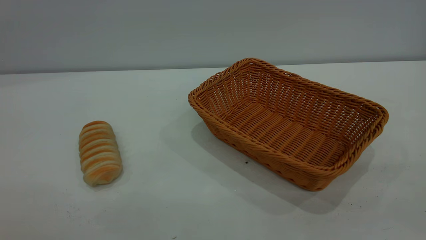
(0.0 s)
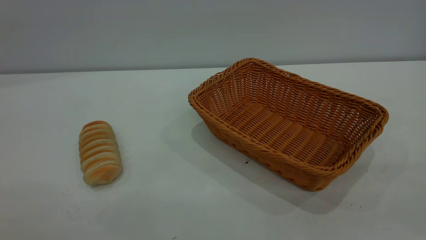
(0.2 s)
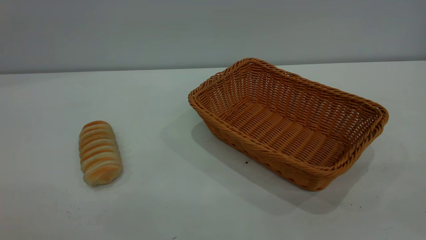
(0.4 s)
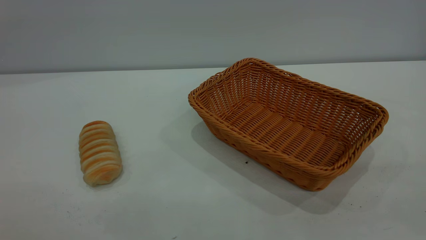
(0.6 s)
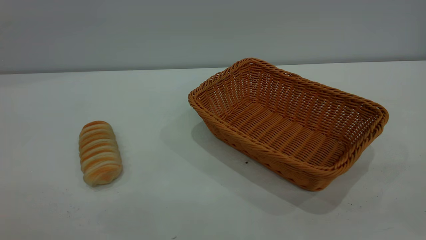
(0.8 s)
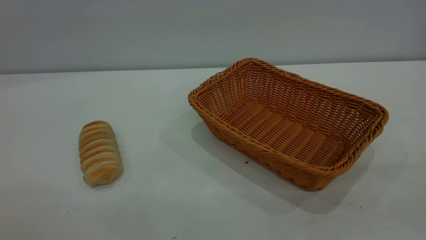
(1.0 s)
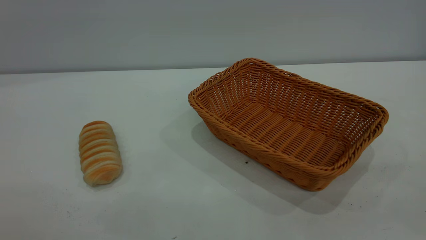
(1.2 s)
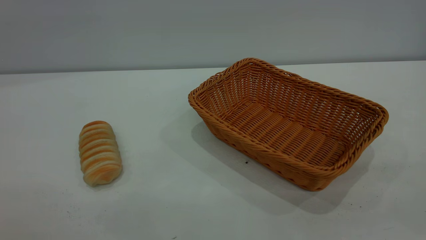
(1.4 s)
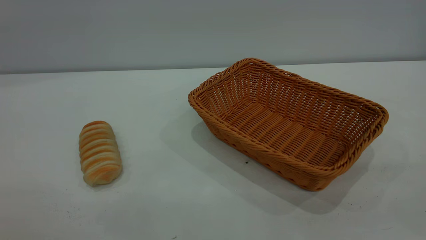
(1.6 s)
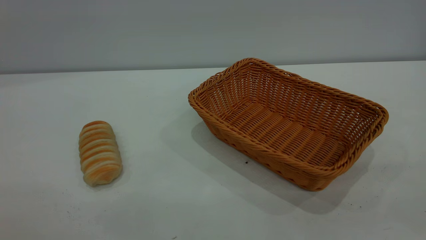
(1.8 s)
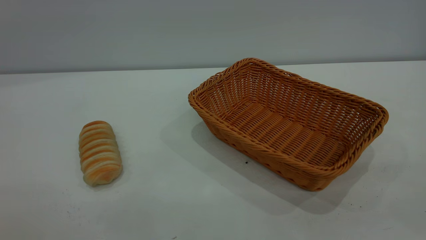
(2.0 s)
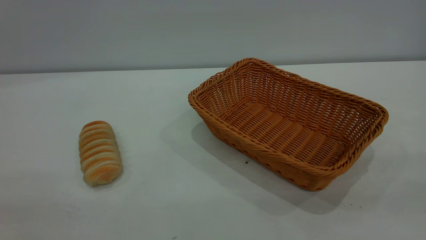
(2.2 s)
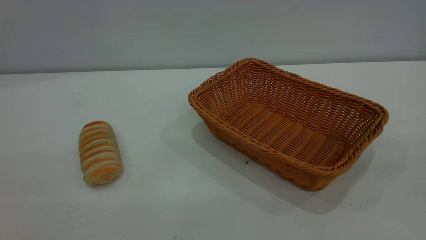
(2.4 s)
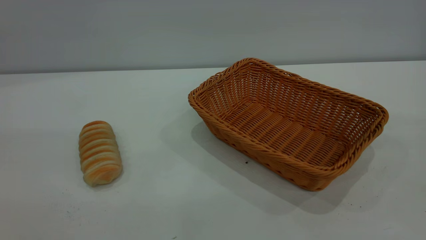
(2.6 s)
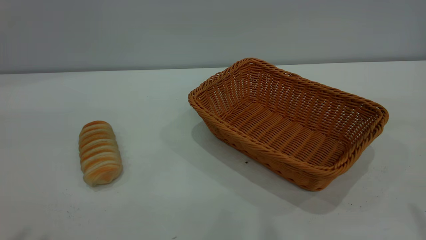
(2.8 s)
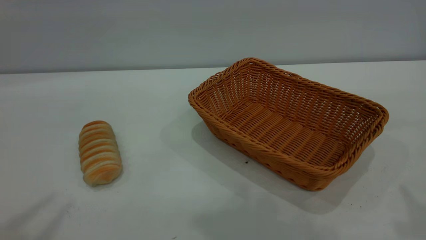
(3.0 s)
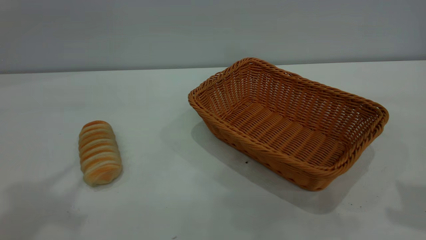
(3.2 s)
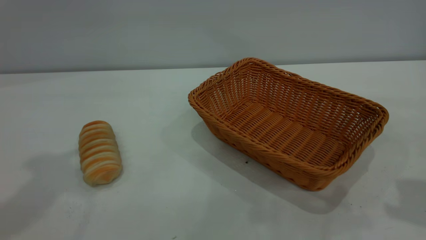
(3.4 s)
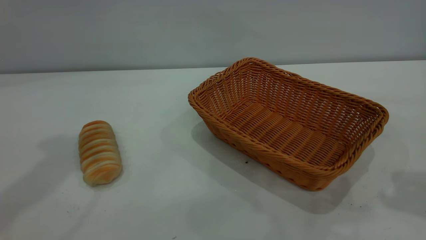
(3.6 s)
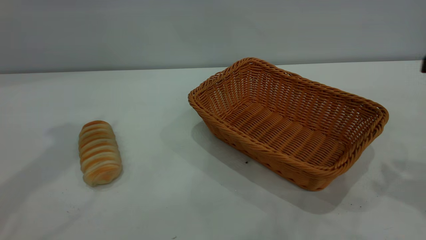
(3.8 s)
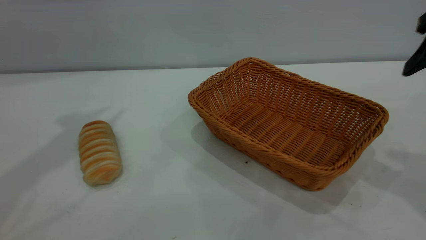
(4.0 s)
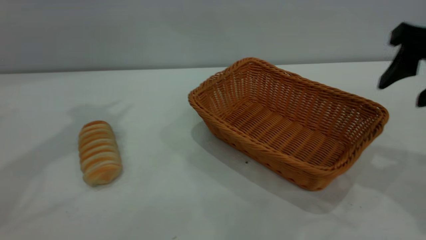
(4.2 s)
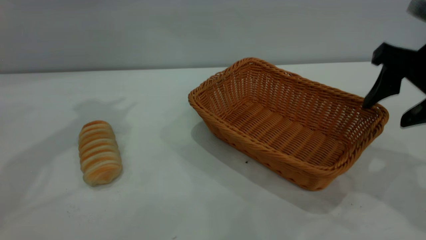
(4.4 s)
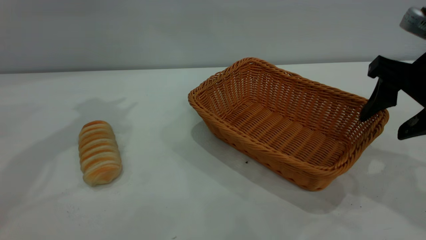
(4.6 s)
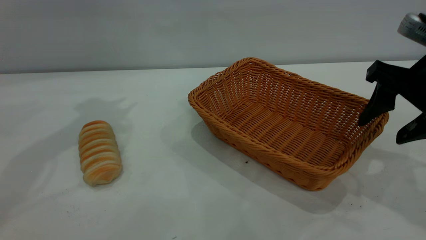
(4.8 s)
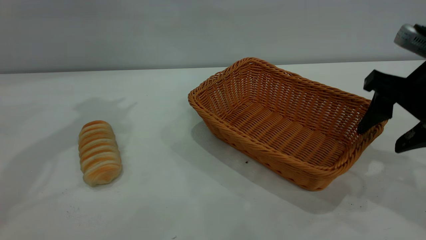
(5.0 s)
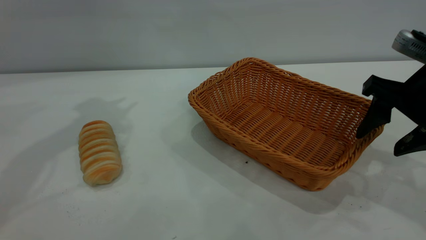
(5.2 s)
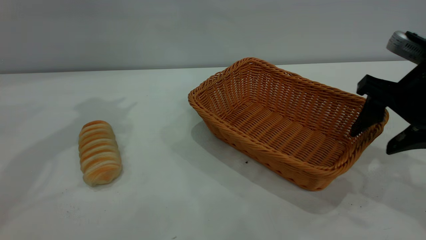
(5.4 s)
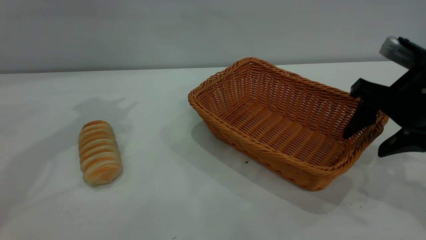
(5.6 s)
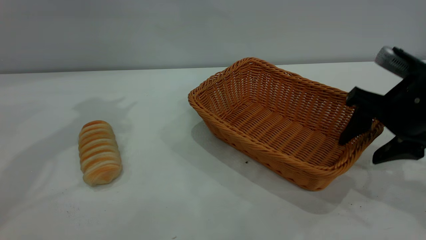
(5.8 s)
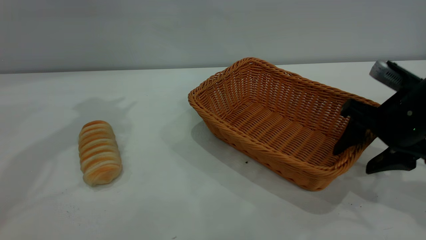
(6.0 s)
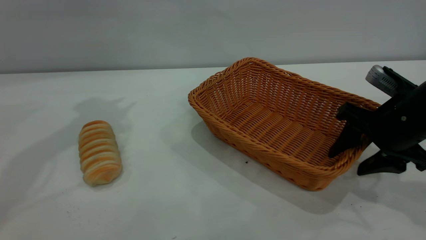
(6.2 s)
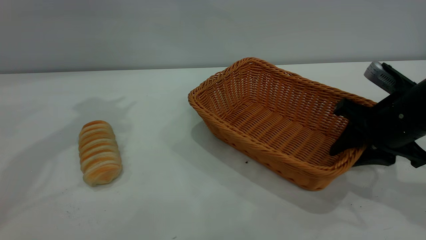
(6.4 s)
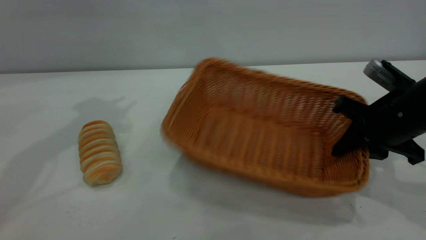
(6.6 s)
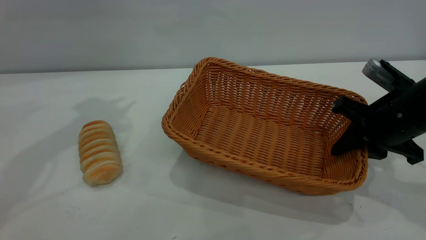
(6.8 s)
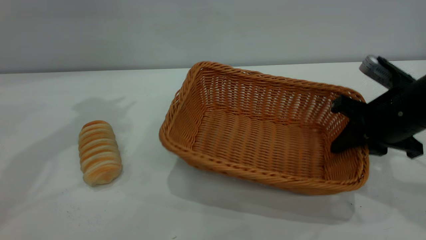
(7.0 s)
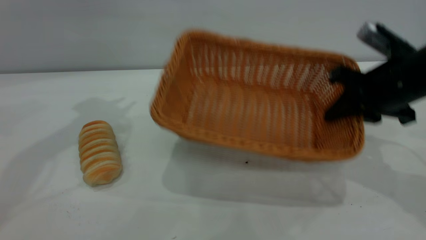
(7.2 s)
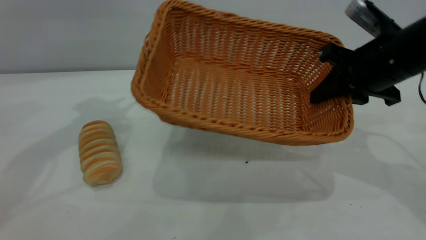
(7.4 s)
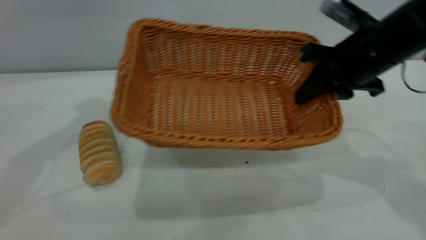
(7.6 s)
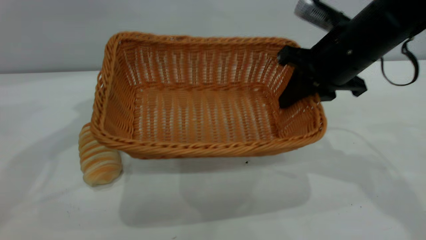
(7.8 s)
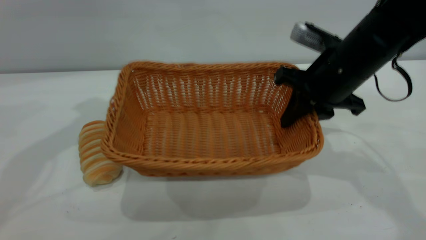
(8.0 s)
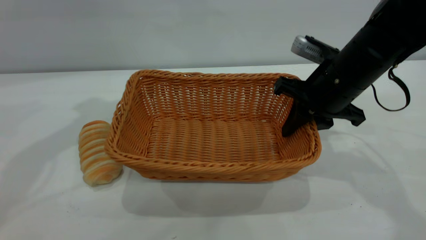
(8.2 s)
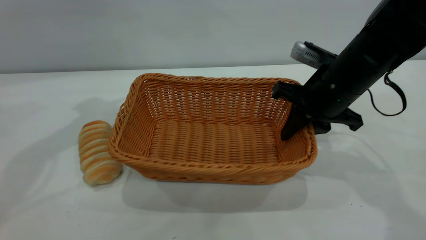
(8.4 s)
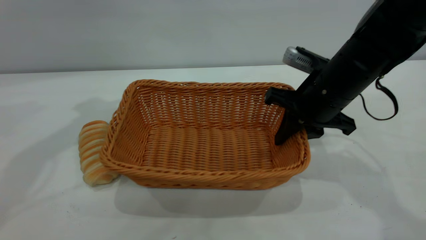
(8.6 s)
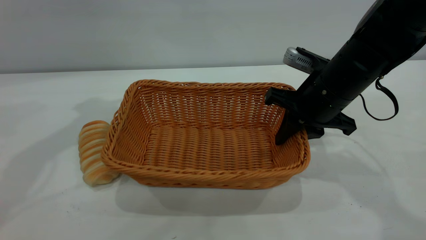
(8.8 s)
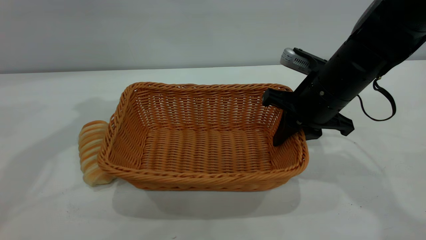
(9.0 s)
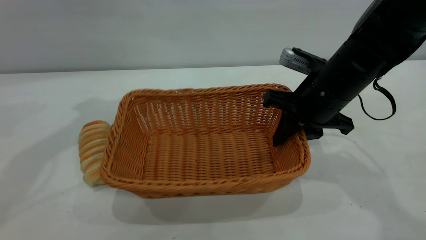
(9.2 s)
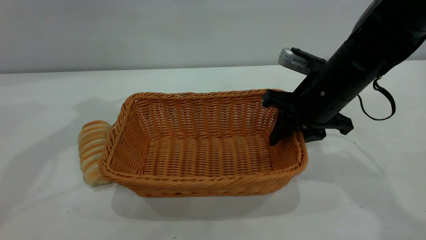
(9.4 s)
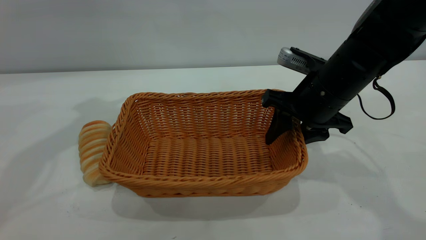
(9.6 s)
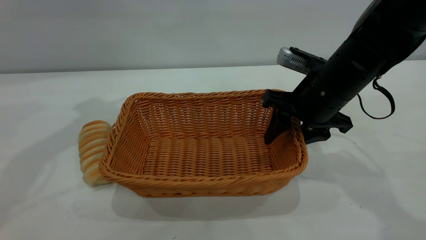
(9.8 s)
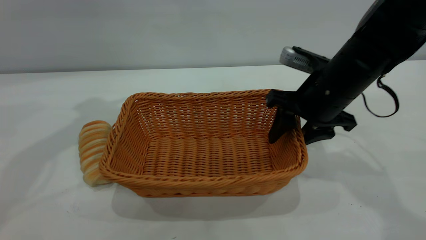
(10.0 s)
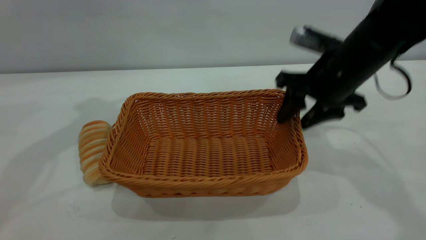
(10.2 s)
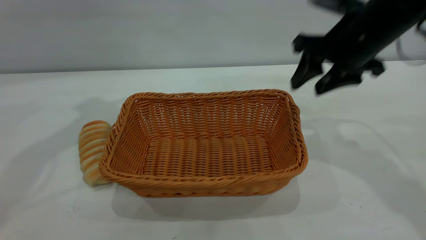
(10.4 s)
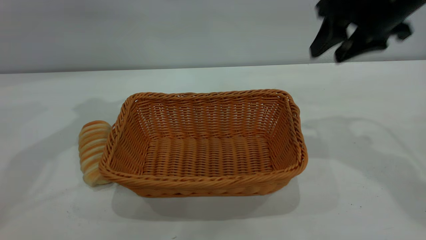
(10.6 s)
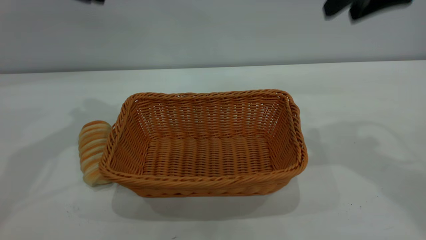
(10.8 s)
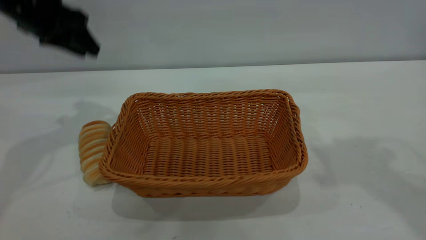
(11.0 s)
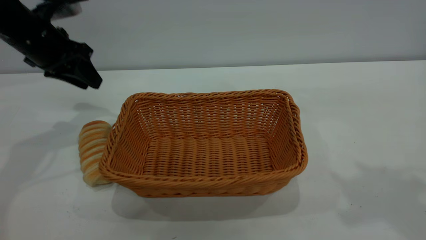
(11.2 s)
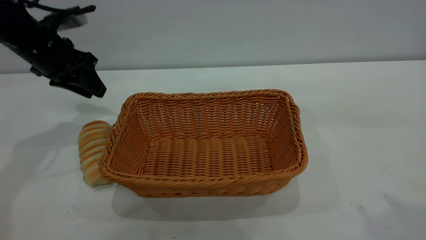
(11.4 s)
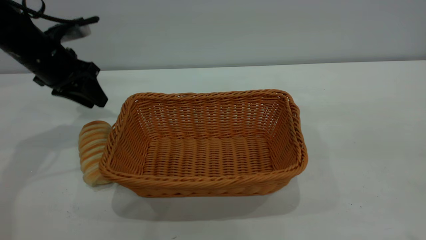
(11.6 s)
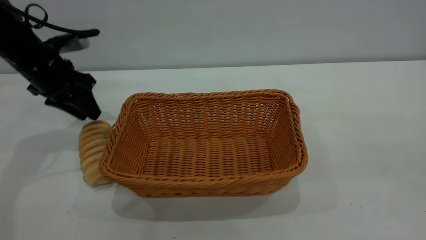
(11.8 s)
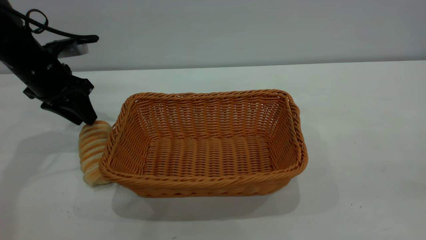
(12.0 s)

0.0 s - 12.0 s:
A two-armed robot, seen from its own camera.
Task of the whole recording: One hand grasps the yellow basket and places it in the middle of the table, while the other hand picks up the long bread and puts it into the yellow basket.
Step, 0.0 s - 10.2 s: Move the basket to the center of view.
0.0 s - 1.6 s: The two grippers keep their place.
3.0 s - 4.4 s: The right gripper travels downward and forward by about 15 cm.
4.4 s - 6.0 s: The right gripper goes about 10 cm downward.
6.0 s - 7.6 s: The right gripper heads upward, to the left and forward, covering some 10 cm, and closes.
7.6 s - 9.0 s: The right gripper heads downward, covering some 5 cm.
9.0 s - 10.4 s: The right gripper moves upward, roughly 10 cm, and opens its fingers.
10.4 s - 12.0 s: The left gripper goes about 15 cm downward. Meanwhile the right gripper goes roughly 35 cm backward and upward.

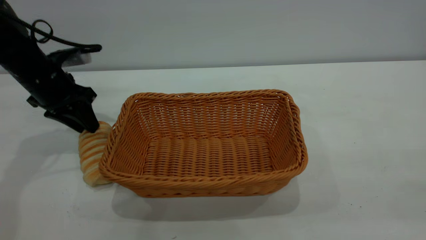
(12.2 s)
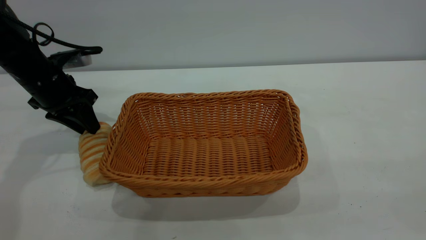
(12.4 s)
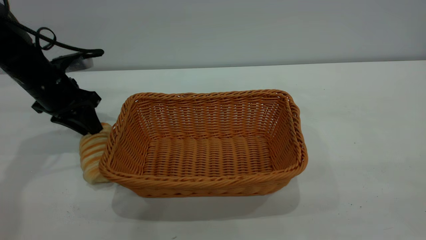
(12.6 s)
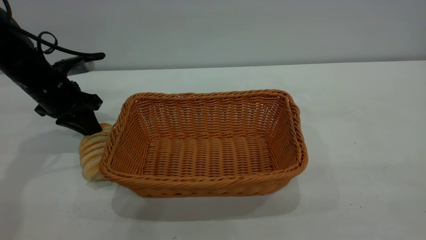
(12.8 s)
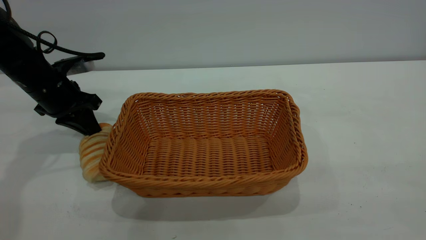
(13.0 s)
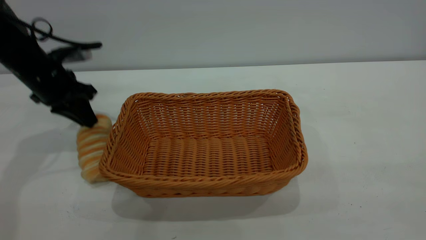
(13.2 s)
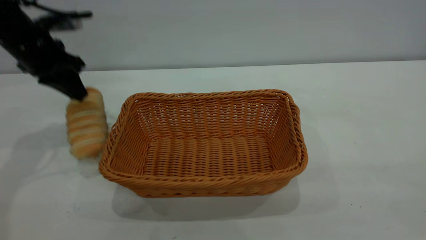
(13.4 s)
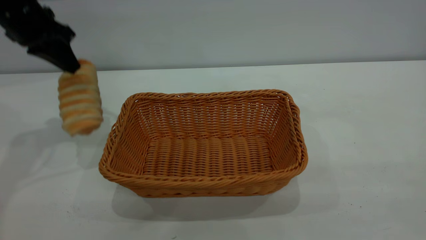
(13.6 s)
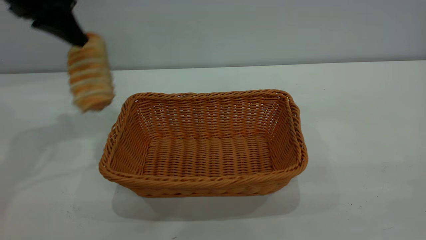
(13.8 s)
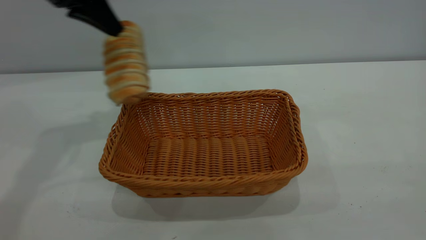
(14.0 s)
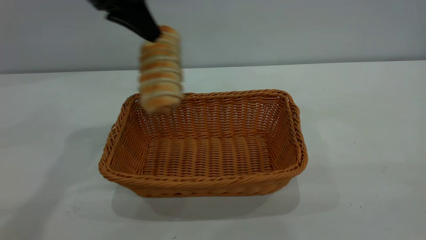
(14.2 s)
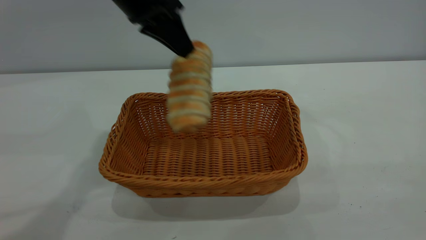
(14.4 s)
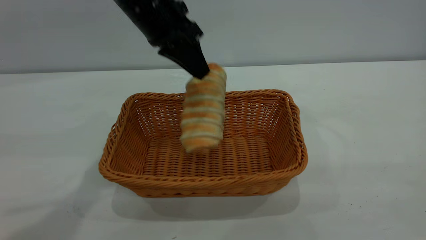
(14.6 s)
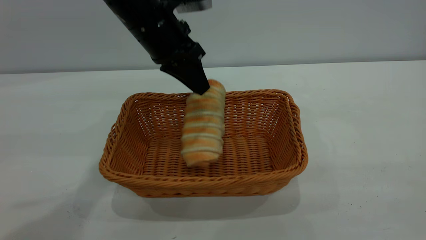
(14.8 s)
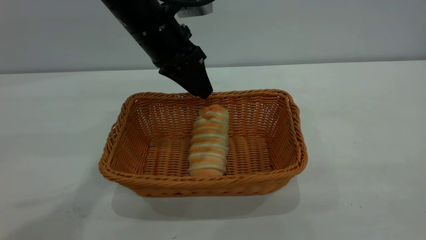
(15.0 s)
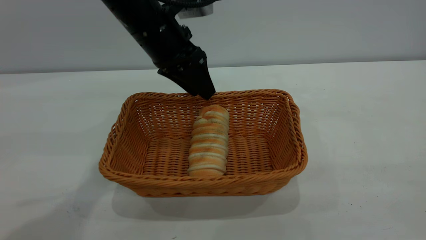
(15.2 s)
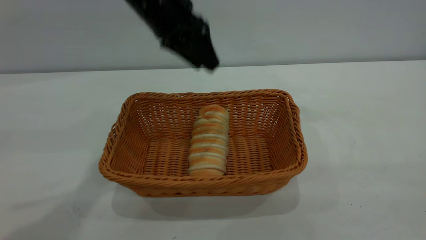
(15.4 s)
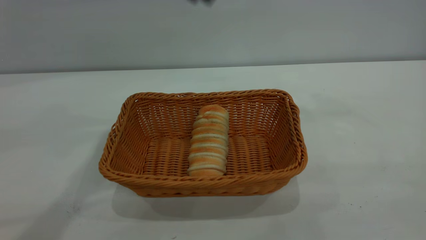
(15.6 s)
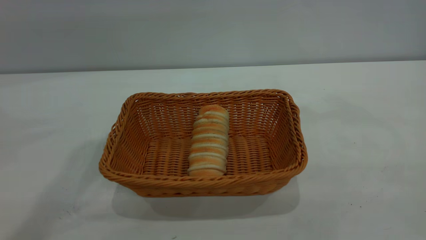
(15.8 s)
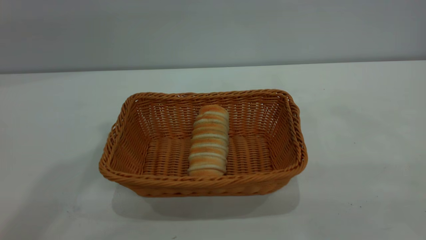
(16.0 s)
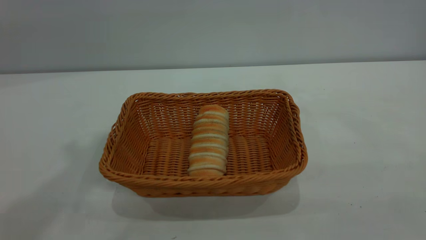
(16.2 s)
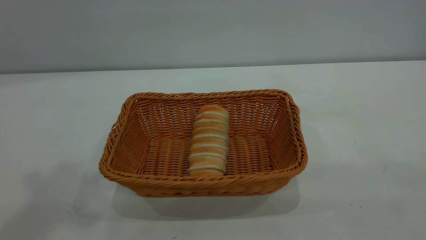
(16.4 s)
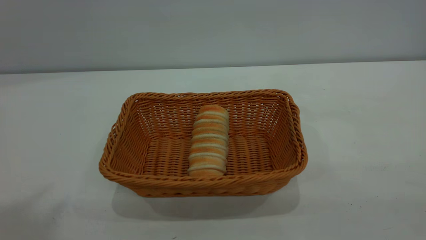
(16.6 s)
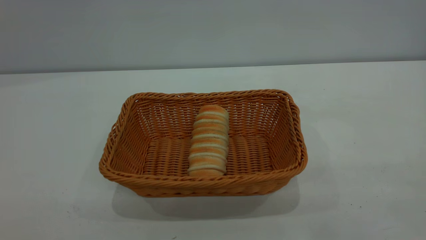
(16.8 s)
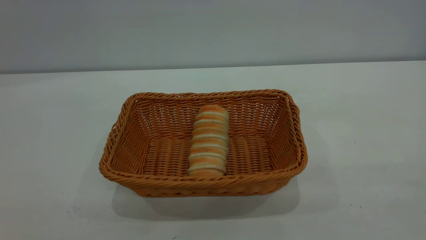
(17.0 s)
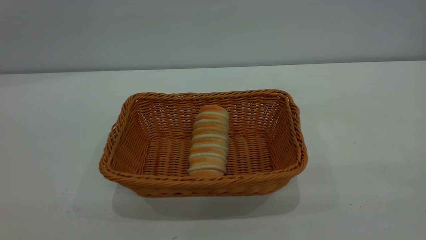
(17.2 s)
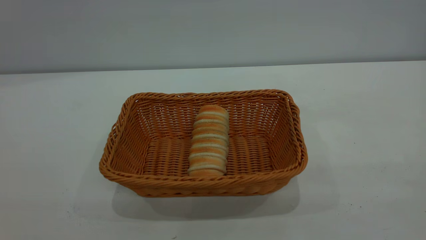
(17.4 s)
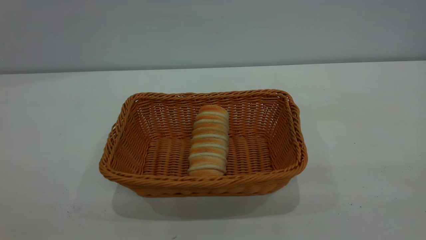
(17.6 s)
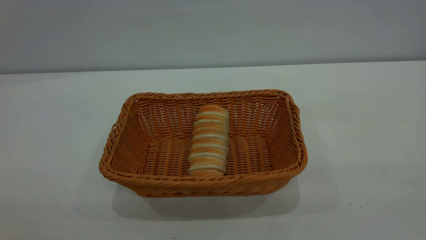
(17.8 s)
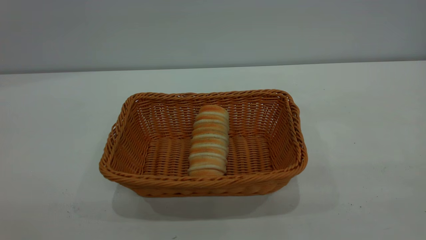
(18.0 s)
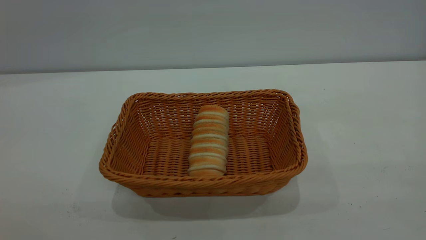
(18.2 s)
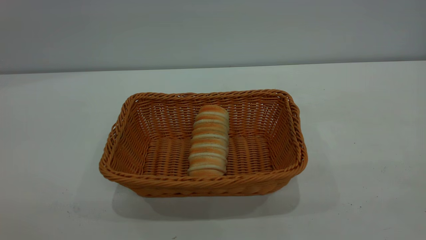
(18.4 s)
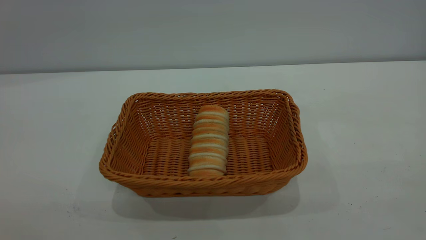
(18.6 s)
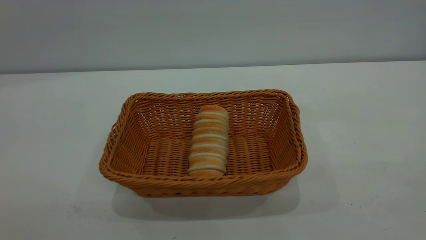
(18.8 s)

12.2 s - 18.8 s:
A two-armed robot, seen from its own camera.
Task of the whole recording: One hand grasps the yellow basket and places it in the middle of the table, while the other hand picks up the long bread and puts it into the yellow basket.
Step, 13.6 s - 15.4 s: place the bread into the basket.
12.2 s - 13.8 s: The left gripper travels upward by some 15 cm, and closes its fingers.
13.8 s - 15.4 s: The left gripper is displaced to the right by approximately 20 cm, and opens up.
15.4 s - 17.2 s: The left gripper is displaced backward, upward and to the left by approximately 60 cm.
